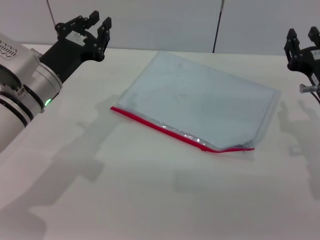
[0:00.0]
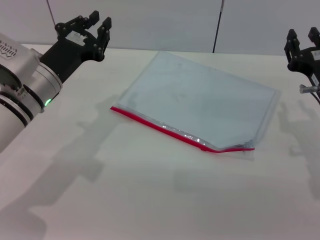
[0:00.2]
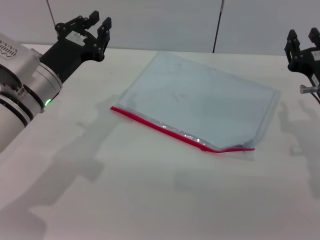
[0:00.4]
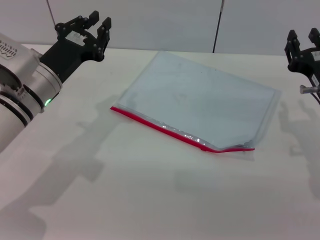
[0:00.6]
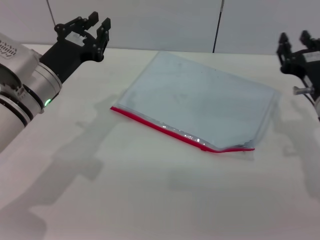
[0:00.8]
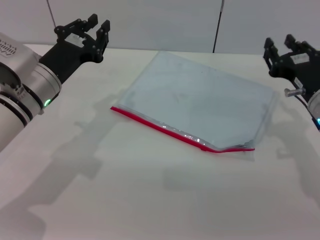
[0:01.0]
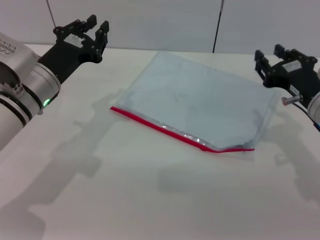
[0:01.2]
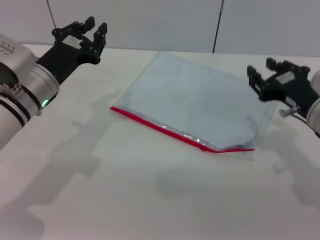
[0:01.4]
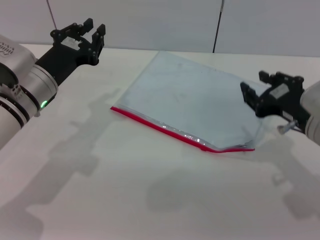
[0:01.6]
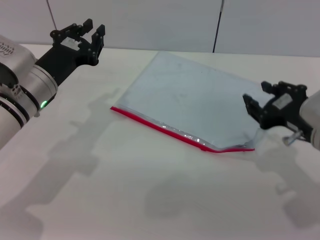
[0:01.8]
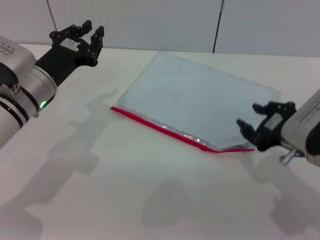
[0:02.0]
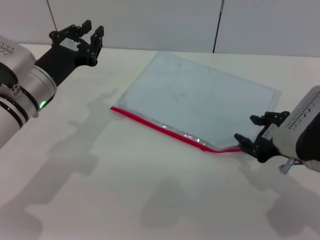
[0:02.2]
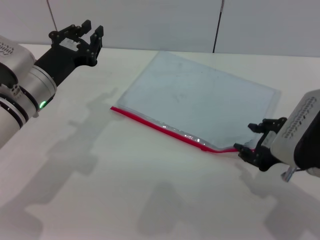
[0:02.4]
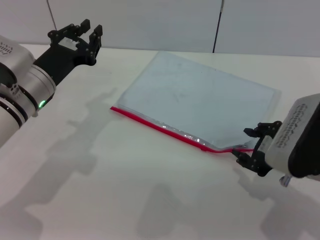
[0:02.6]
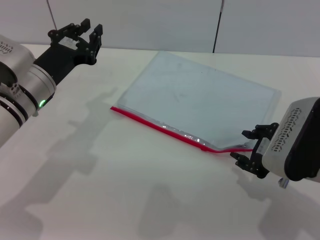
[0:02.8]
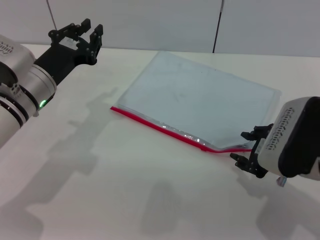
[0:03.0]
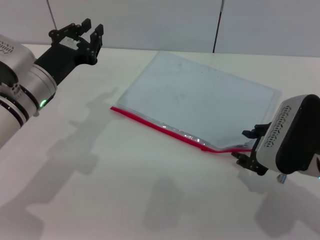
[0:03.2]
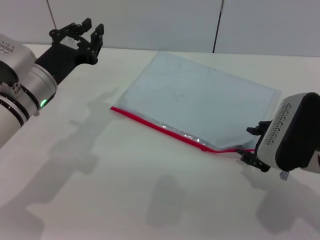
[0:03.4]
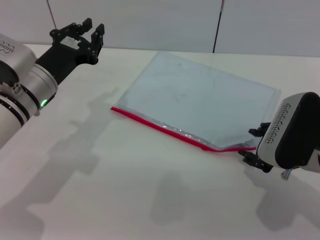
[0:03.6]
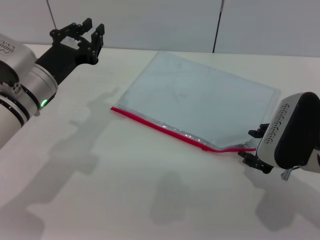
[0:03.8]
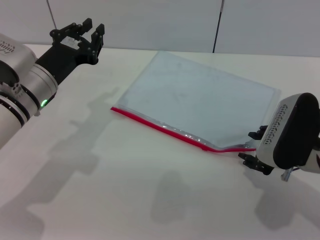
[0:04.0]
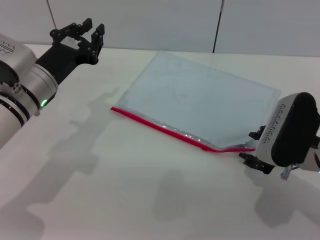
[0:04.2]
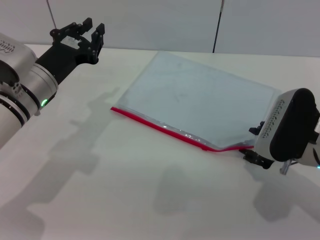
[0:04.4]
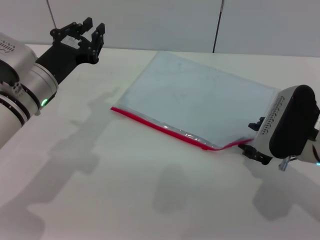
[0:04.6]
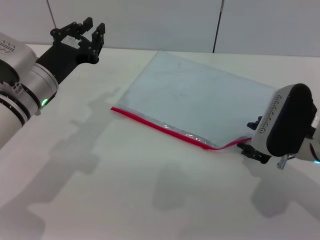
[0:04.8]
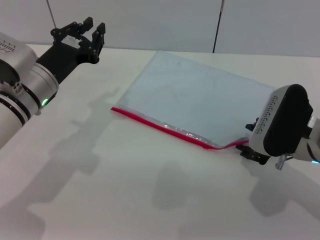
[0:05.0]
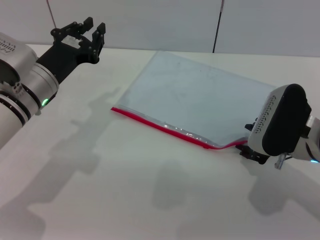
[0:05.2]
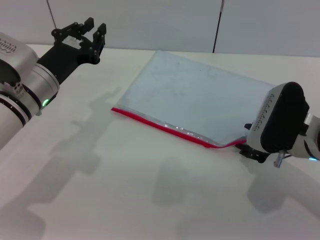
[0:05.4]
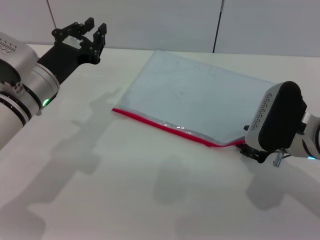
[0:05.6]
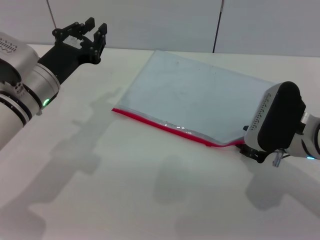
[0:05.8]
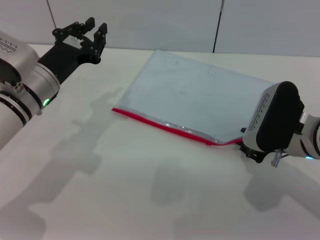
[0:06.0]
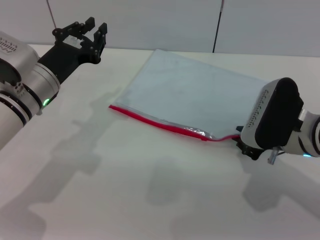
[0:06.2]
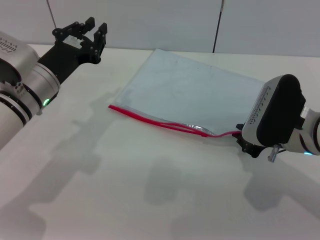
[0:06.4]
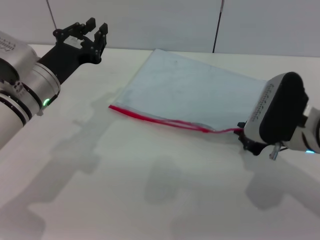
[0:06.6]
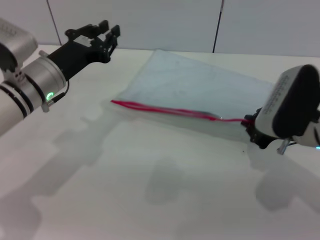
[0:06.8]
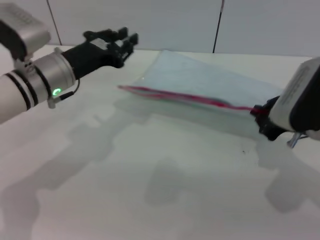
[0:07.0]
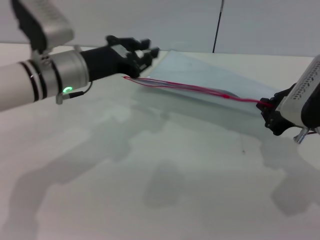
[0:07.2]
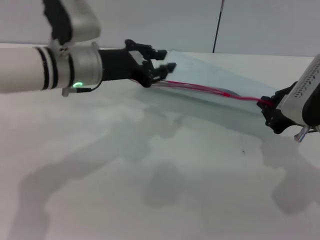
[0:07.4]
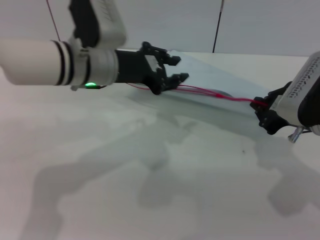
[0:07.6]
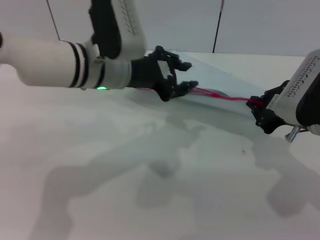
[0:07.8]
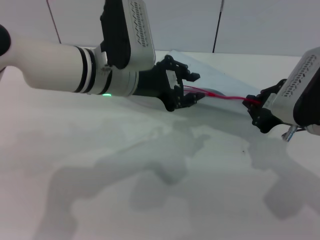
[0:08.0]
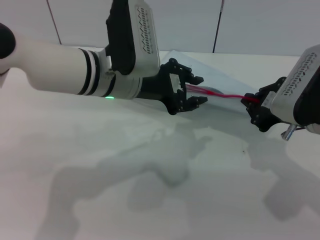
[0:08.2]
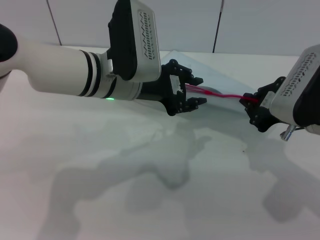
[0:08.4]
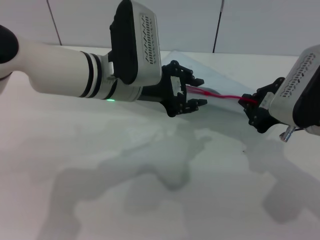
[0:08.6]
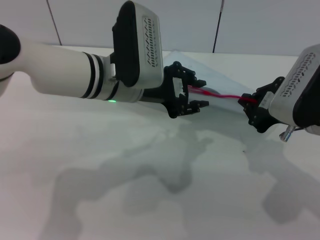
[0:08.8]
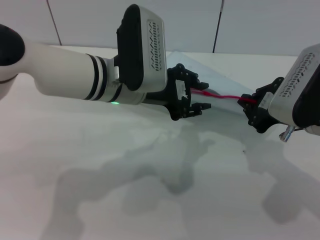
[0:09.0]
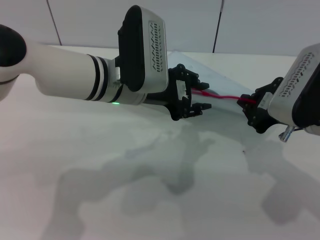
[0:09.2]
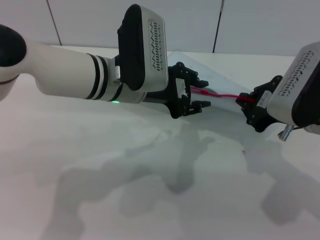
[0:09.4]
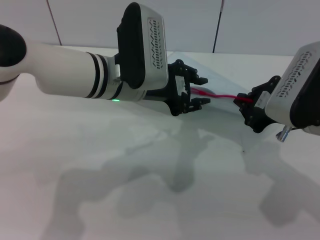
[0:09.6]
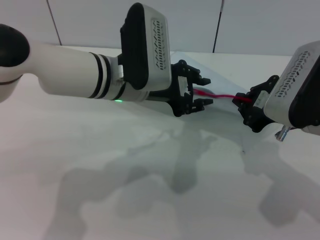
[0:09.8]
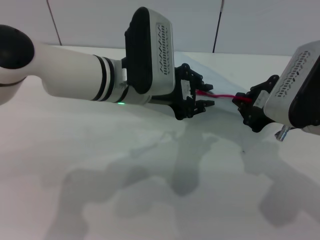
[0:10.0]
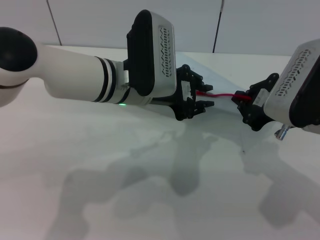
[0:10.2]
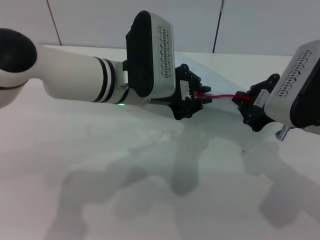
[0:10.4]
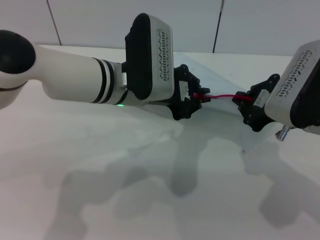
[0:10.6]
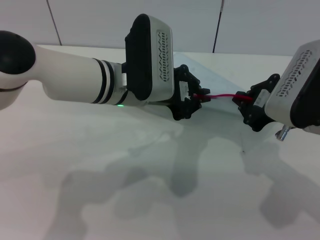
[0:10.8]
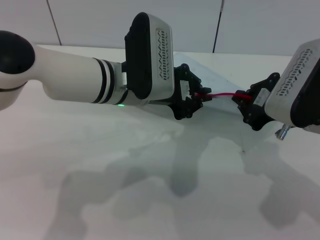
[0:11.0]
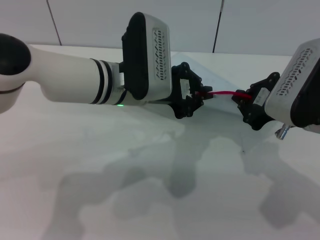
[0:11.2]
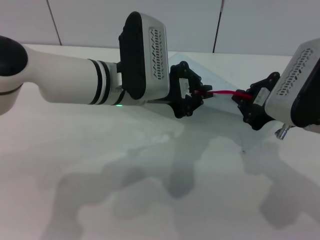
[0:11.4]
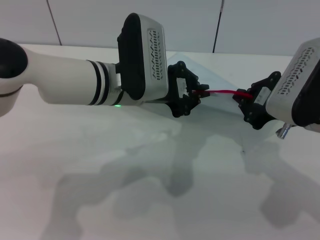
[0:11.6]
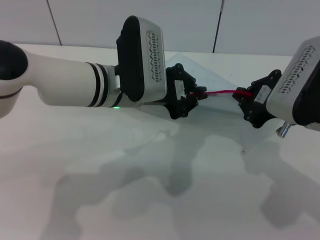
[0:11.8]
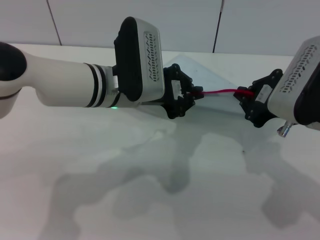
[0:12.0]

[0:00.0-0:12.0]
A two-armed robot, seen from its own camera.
Step, 0:00.0 to 0:07.0: Pick up the transparent plastic bag with the right gripper.
0:03.0 to 0:06.0: There are only small adjustments of the grippers.
0:06.0 to 0:07.6: The right gripper travels upward by some 5 cm, and closes its fingers. The left gripper heads to the right and upward, covering about 10 cm.
0:07.6 to 0:09.0: The left gripper moves some 5 cm.
0:09.0 to 0:10.4: Both grippers stay put.
0:10.4 to 0:12.0: The left gripper closes up.

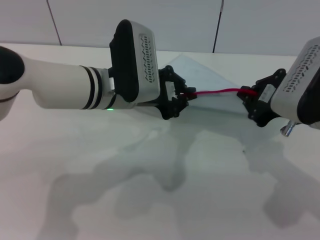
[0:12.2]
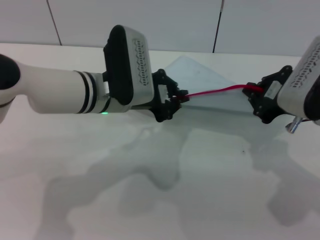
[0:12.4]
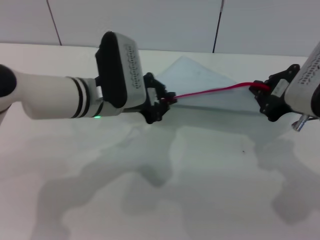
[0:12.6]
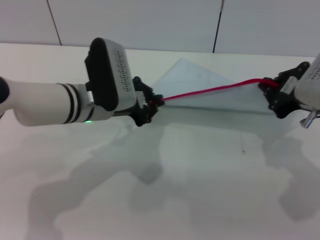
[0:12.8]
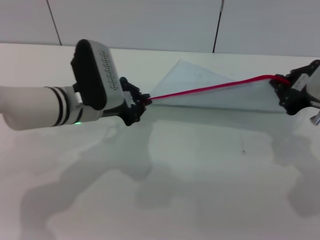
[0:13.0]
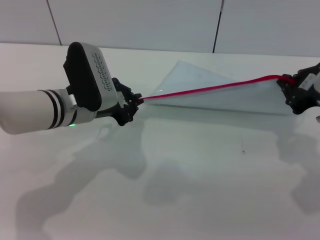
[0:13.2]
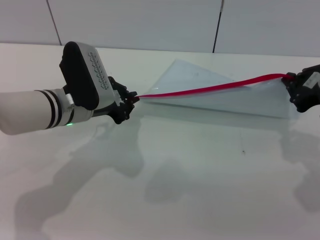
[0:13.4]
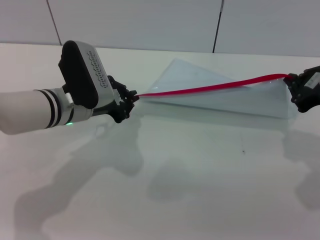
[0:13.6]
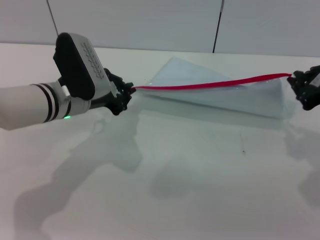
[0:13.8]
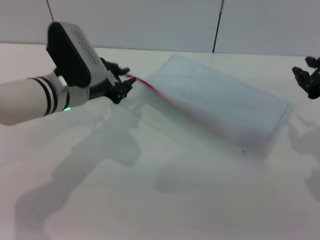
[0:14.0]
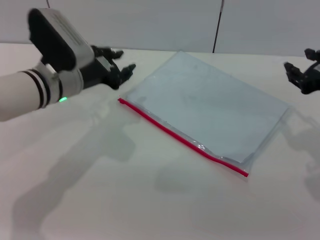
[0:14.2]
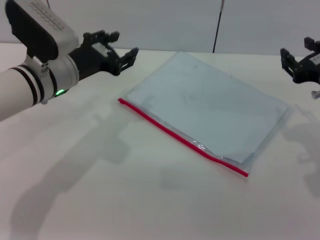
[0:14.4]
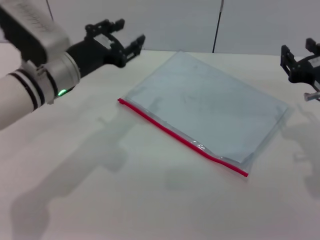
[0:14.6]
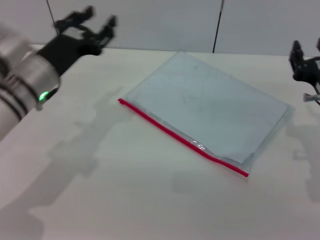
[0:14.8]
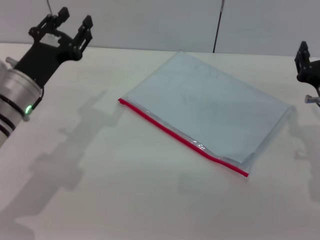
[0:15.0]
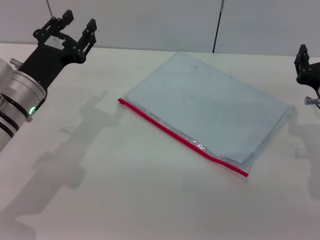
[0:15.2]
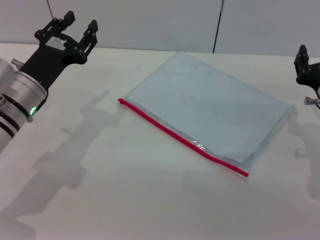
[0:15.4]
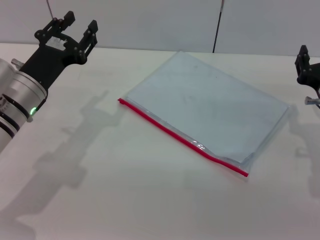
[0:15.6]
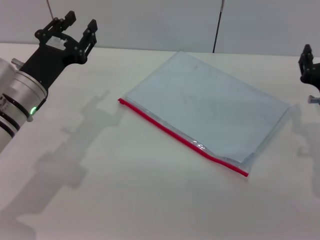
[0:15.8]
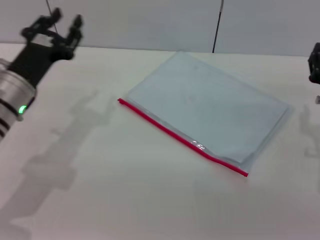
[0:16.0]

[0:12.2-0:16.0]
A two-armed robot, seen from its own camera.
0:12.2 to 0:13.4: The left gripper moves to the left, about 5 cm; the right gripper travels to the right by about 5 cm.
0:13.4 to 0:14.8: The right gripper shifts about 10 cm downward, and opens its fingers. Meanwhile the left gripper moves approximately 5 cm, and opens its fingers.
0:14.8 to 0:16.0: The grippers make only small movements.
